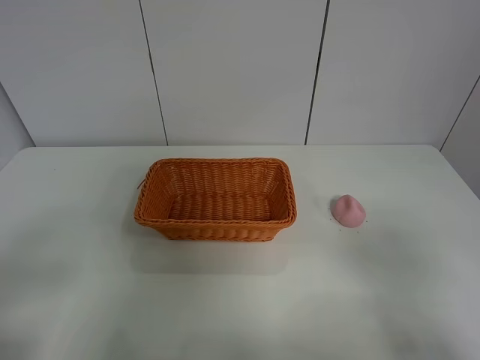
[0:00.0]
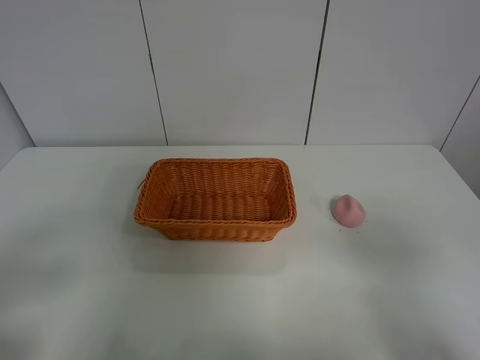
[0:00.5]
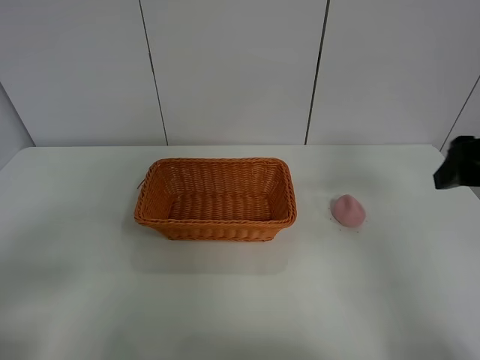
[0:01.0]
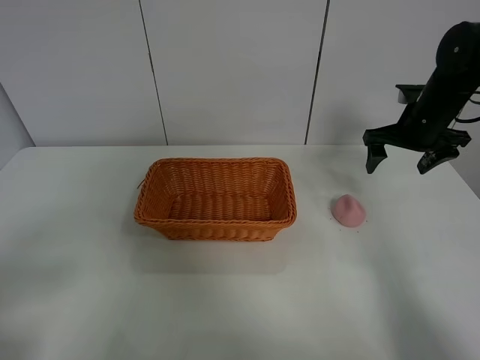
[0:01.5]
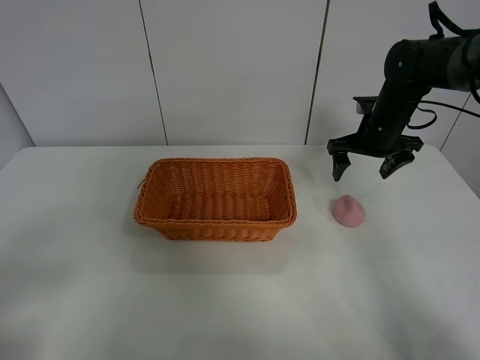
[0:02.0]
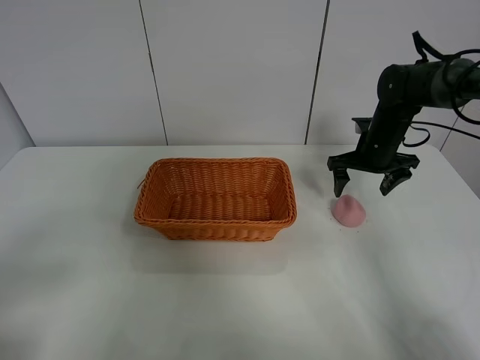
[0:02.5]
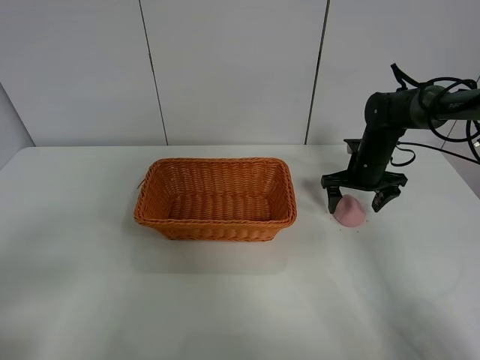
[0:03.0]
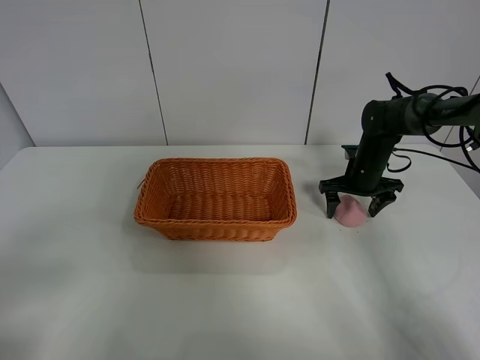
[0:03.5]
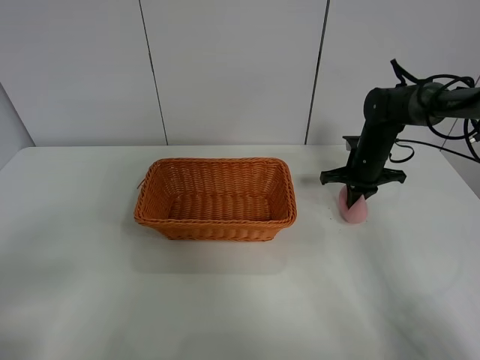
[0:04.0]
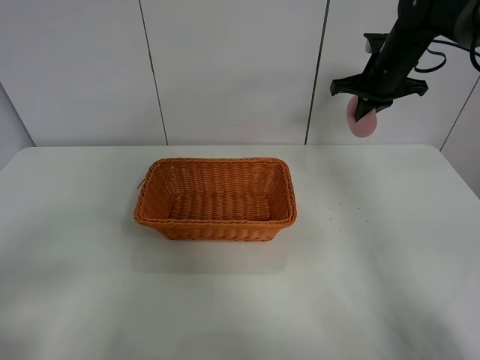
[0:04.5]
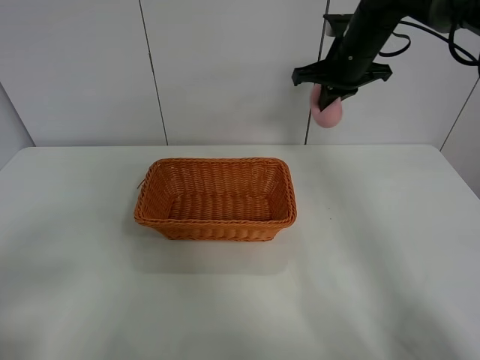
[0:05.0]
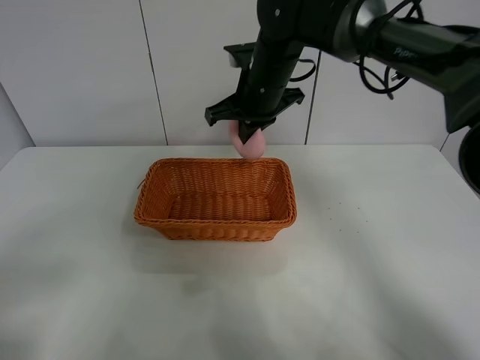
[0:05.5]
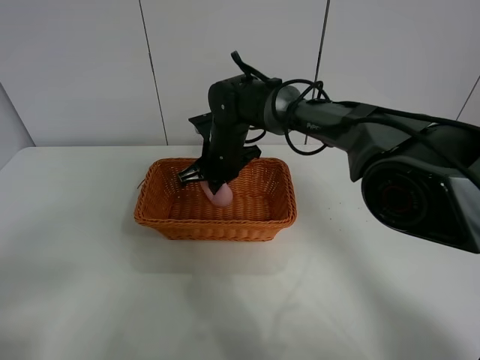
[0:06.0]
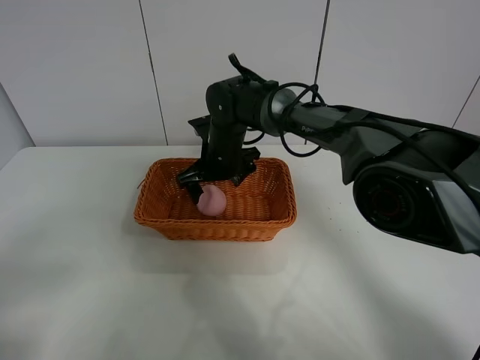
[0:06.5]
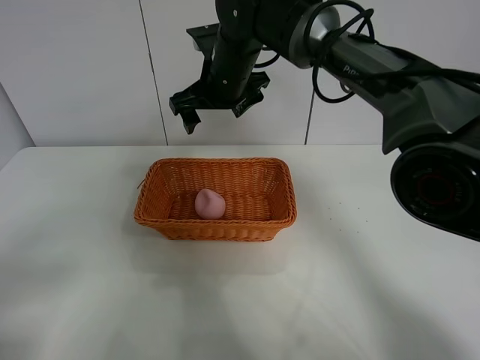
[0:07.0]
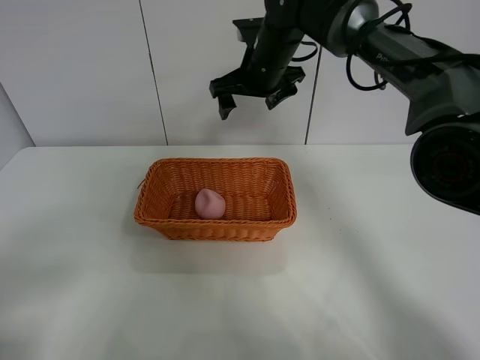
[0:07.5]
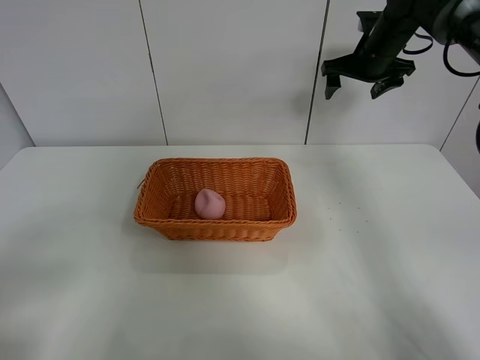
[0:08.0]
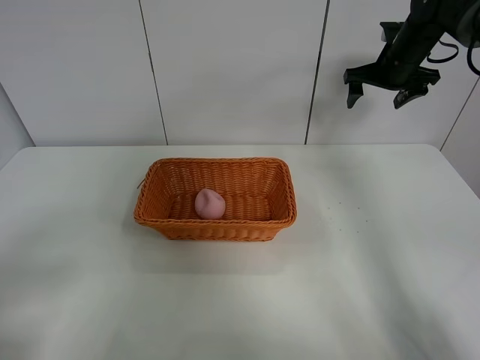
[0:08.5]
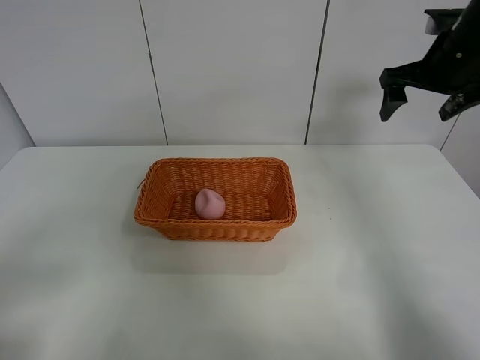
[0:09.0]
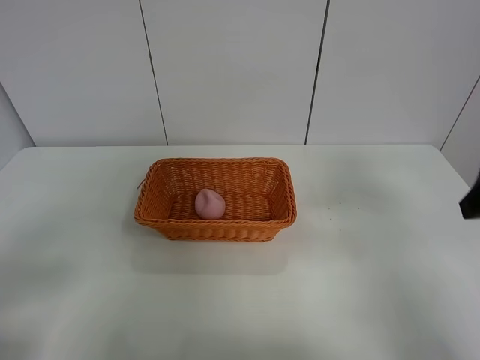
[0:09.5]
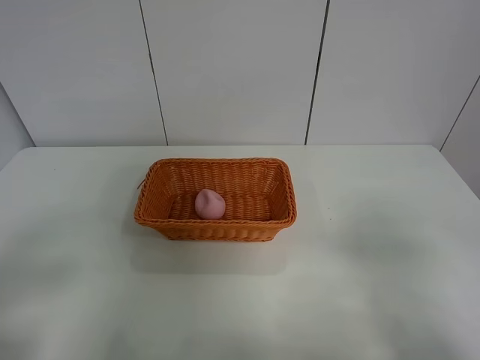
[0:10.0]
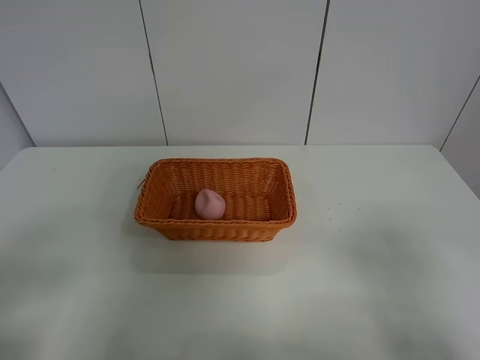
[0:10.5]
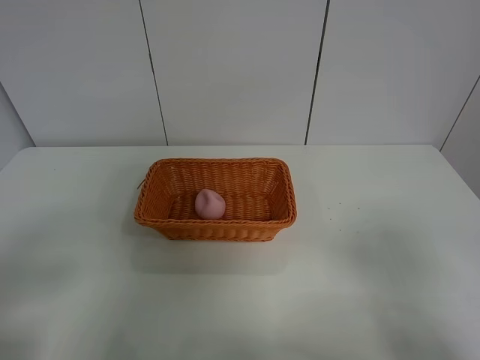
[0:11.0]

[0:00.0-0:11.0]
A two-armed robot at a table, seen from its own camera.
Step, 0:00.0 to 0:03.5: Grasp the peach with right gripper.
Step, 0:04.0 to 0:07.0: Place the peach in the basket with right gripper.
0:00.0 to 0:02.0: The right gripper is displaced forward by some 40 cm.
0:02.0 to 0:03.5: The right gripper moves downward, some 10 cm.
0:03.5 to 0:05.5: The right gripper goes some 30 cm to the left and upward, and closes its fingers.
0:05.5 to 0:07.5: The right gripper is displaced forward by about 5 cm, goes downward and returns, approximately 10 cm each way, and opens up.
0:07.5 to 0:09.0: The right gripper moves to the right and backward, approximately 25 cm.
0:09.0 to 0:11.0: The right gripper travels backward by approximately 35 cm.
